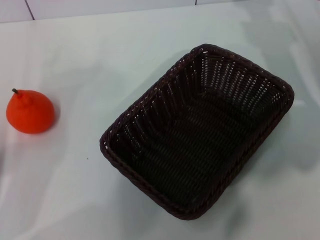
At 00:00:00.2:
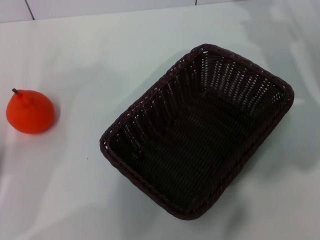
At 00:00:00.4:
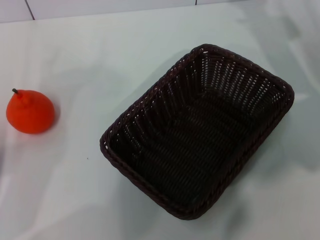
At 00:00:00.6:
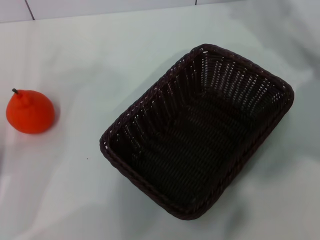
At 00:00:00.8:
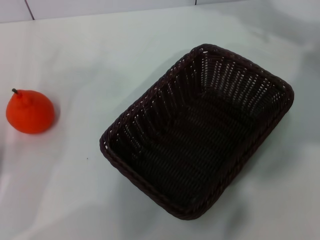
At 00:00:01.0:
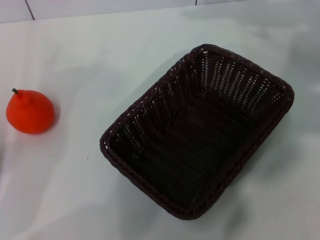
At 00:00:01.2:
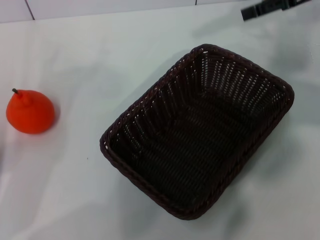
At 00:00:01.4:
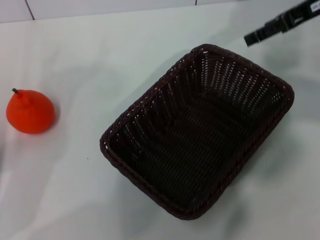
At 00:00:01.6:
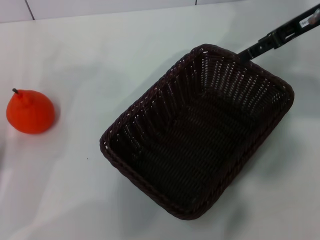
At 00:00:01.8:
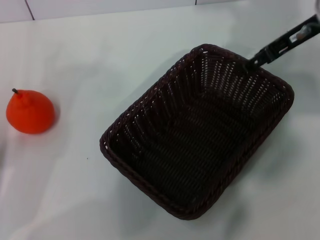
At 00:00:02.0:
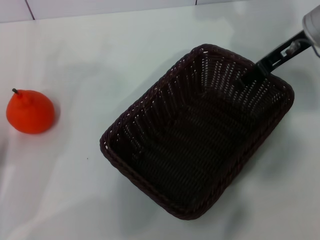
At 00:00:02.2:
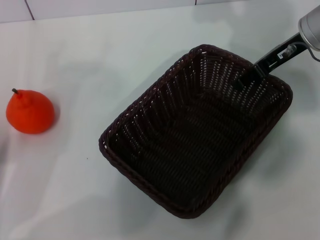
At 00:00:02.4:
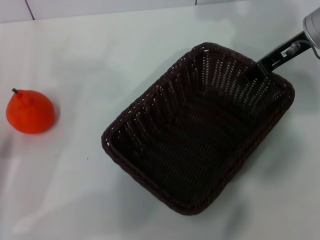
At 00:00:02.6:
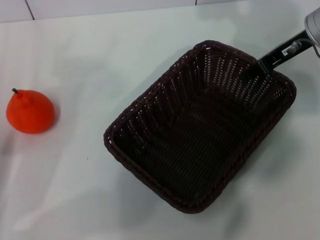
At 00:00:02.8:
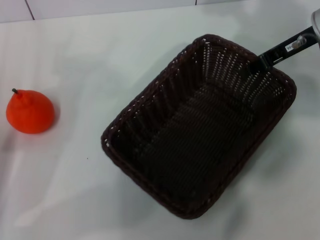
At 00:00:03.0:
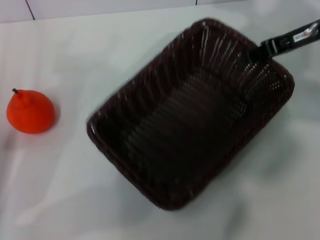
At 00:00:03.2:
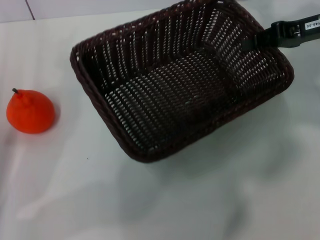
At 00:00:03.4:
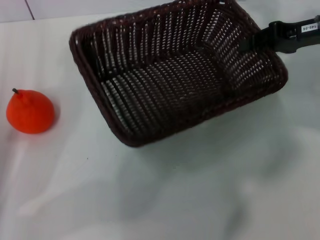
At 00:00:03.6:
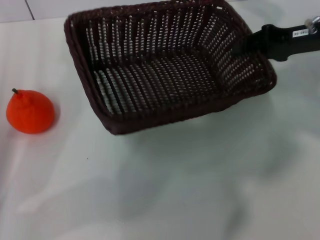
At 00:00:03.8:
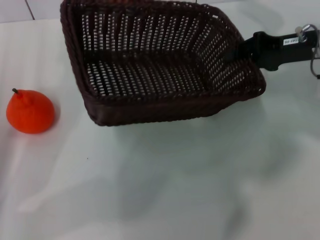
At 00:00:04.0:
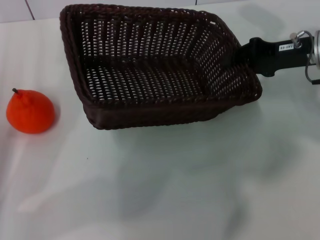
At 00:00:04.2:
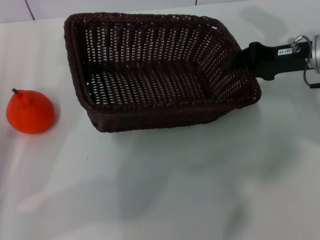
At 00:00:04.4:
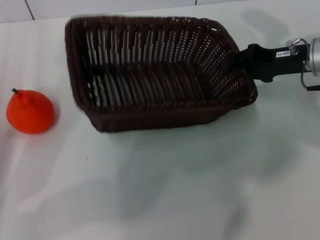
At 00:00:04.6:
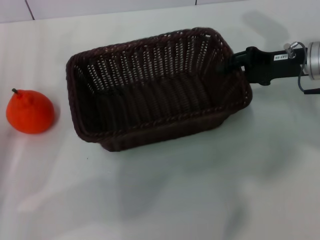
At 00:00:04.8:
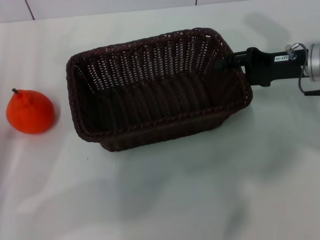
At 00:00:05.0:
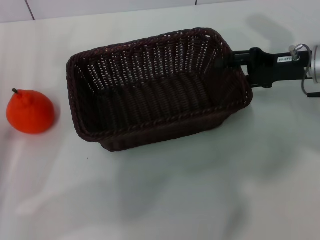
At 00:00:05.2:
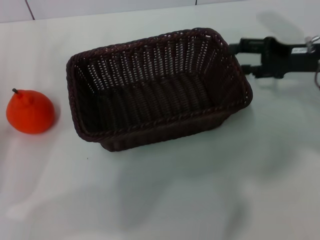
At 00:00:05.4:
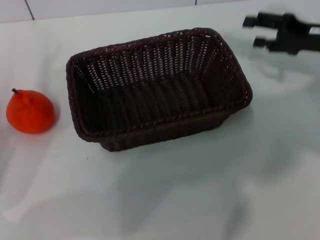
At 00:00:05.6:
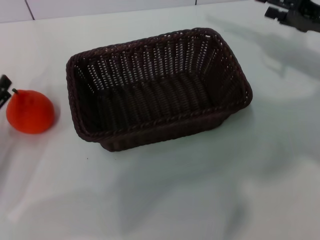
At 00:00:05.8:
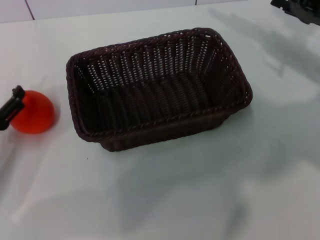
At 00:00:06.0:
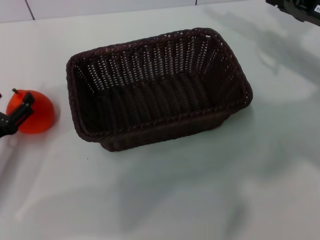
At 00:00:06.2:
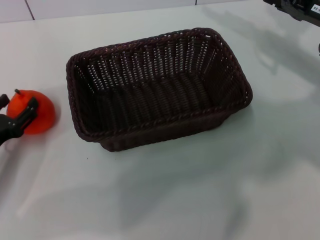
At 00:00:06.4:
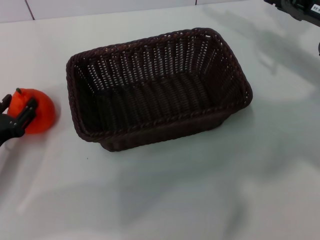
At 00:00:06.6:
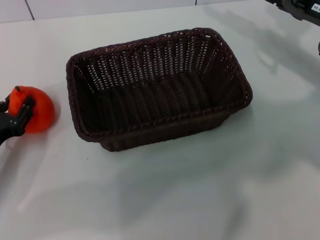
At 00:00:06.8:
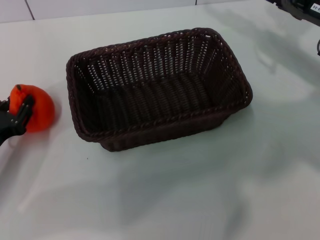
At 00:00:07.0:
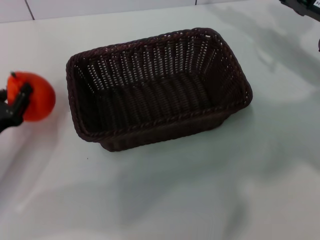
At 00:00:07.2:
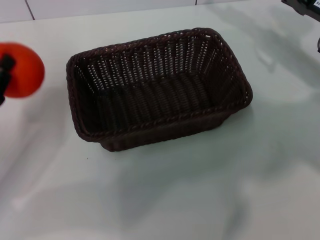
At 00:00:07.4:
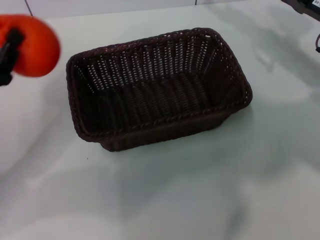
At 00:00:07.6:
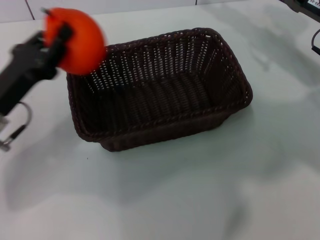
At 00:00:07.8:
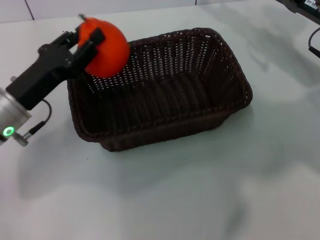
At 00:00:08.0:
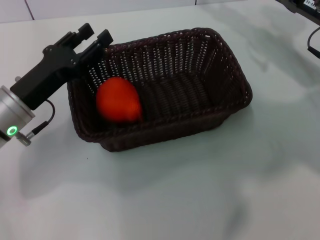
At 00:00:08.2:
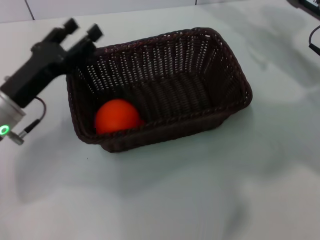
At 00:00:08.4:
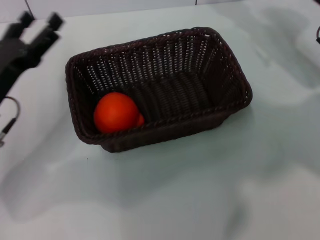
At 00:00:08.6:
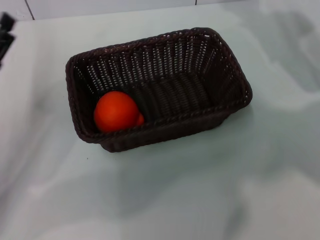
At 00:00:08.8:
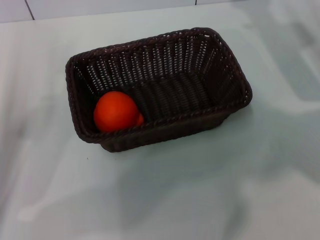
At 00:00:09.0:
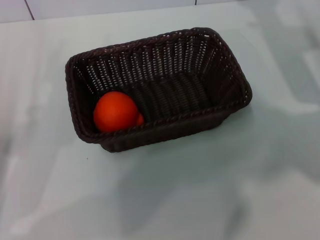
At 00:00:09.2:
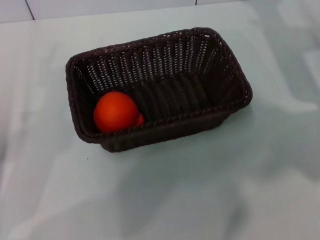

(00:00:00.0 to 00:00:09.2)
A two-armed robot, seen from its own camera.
Task of the whole recording: the right gripper pick up the black basket and place it horizontally in the middle of the table, the left gripper pick up the orange and place it into the black basket.
Step, 00:00:00.0 - 00:00:02.8: Pick up the dark basket with the right gripper.
Step, 00:00:03.0 - 00:00:04.8: Place the dark basket in the center of view with the right gripper.
Step, 00:00:05.0 - 00:00:06.8: Pick up the orange with the left gripper.
Step, 00:00:07.0 - 00:00:07.8: Place the orange into the dark basket with the left gripper.
00:00:00.0 - 00:00:01.6: The right gripper shifts approximately 10 cm upward.
00:00:01.6 - 00:00:03.0: The right gripper closes its fingers.
00:00:03.0 - 00:00:04.6: The right gripper heads downward, covering roughly 5 cm.
00:00:04.6 - 00:00:06.2: The right gripper opens; the left gripper goes about 5 cm downward.
00:00:06.2 - 00:00:07.6: The left gripper moves upward and to the right, roughly 10 cm, and closes its fingers.
00:00:07.6 - 00:00:09.2: The left gripper travels backward and to the left by about 10 cm, and opens its fingers.
